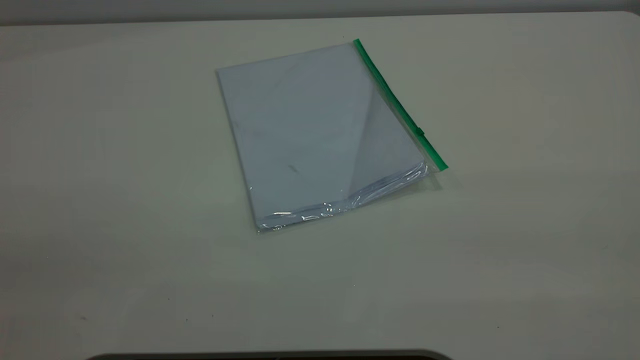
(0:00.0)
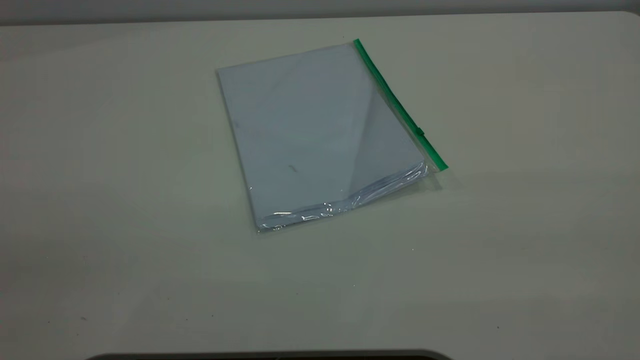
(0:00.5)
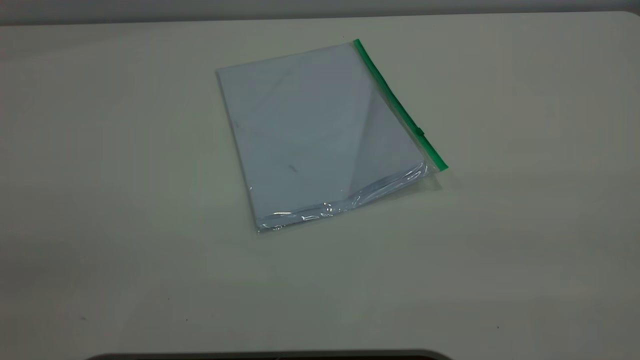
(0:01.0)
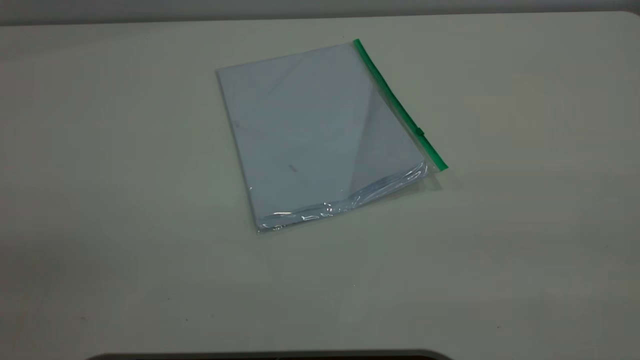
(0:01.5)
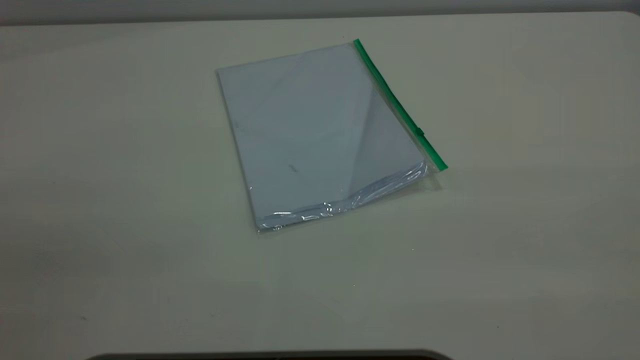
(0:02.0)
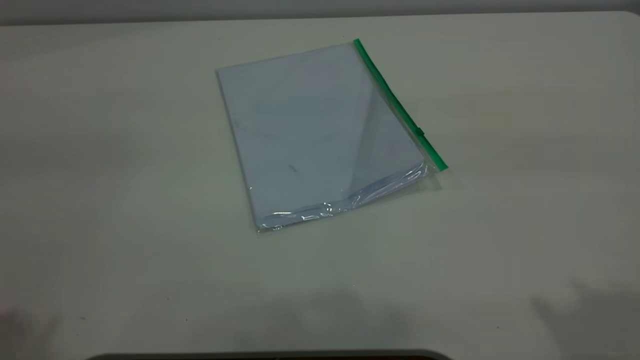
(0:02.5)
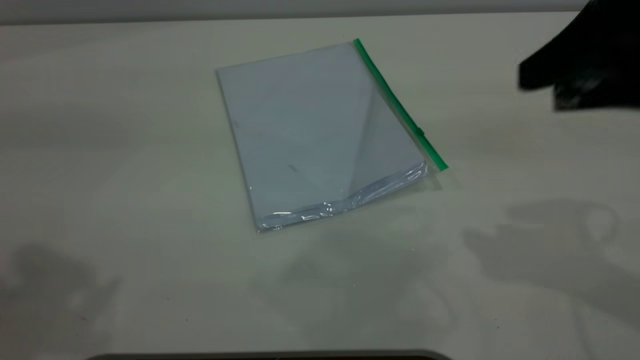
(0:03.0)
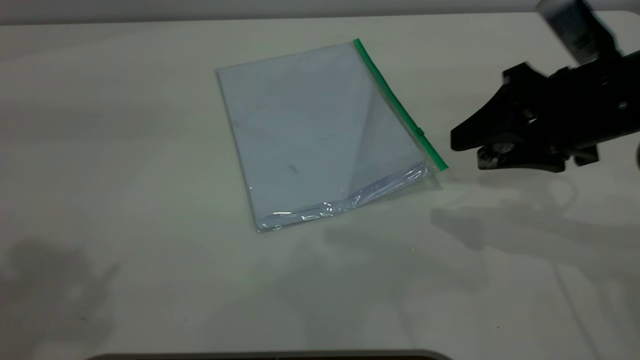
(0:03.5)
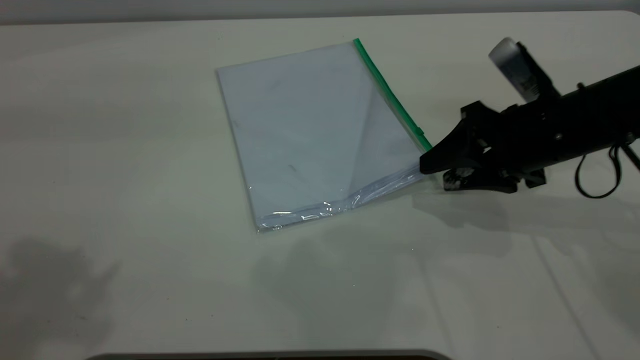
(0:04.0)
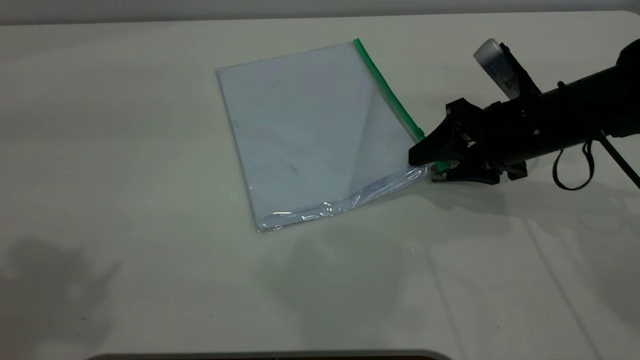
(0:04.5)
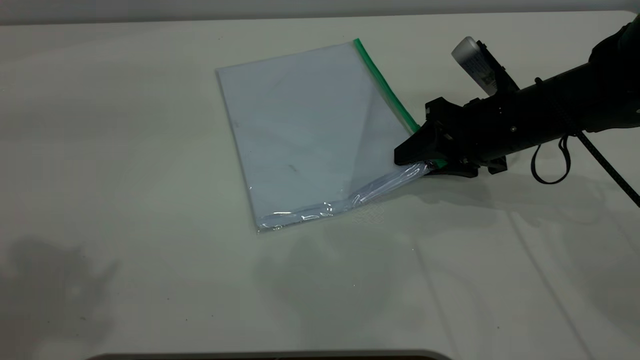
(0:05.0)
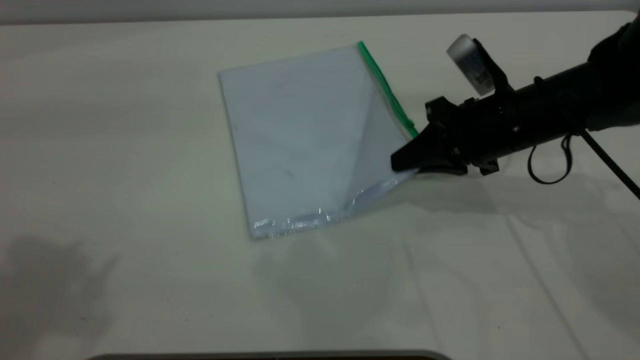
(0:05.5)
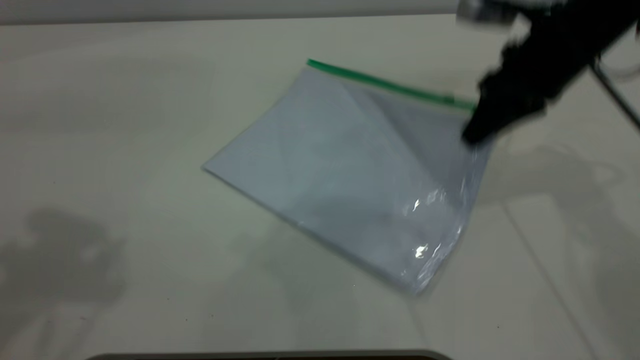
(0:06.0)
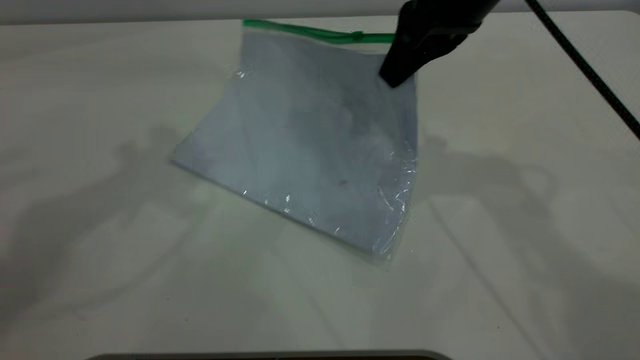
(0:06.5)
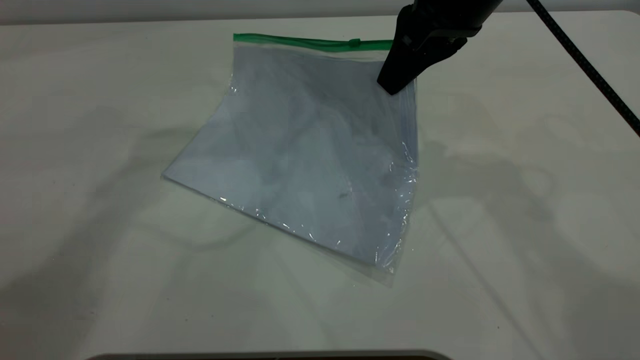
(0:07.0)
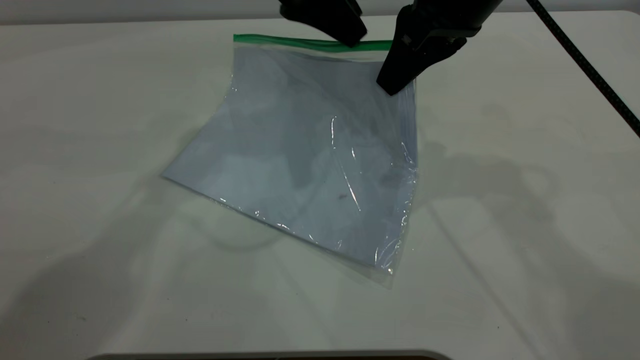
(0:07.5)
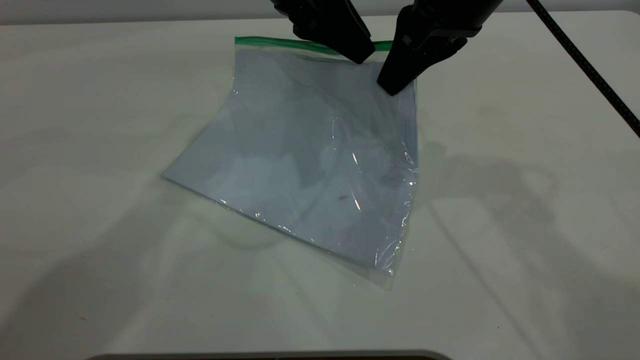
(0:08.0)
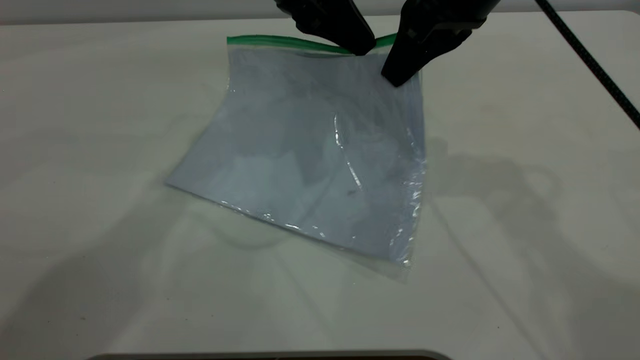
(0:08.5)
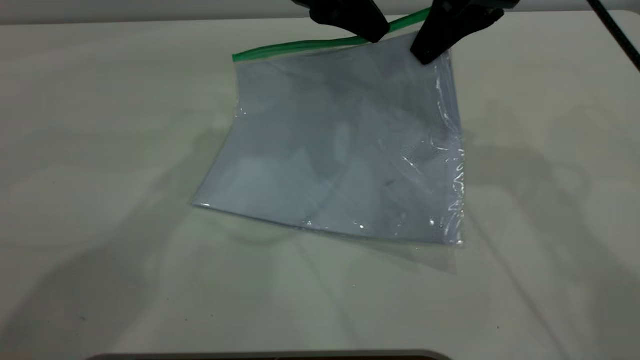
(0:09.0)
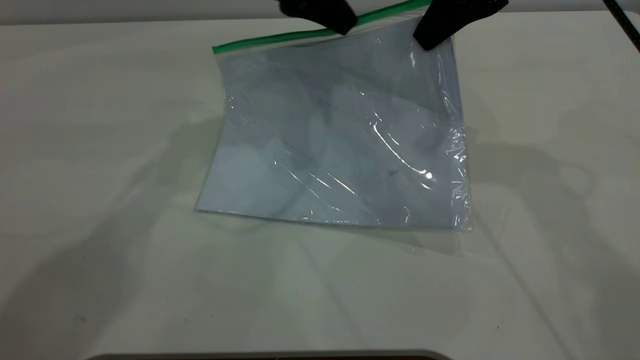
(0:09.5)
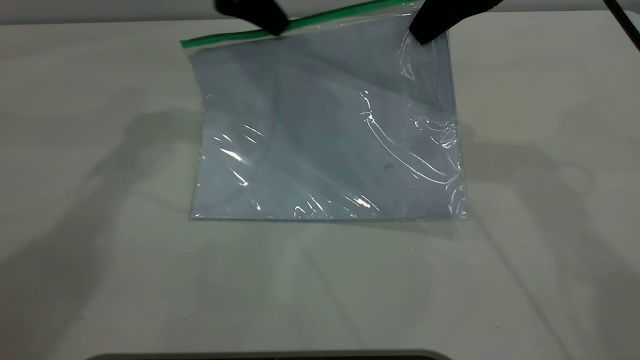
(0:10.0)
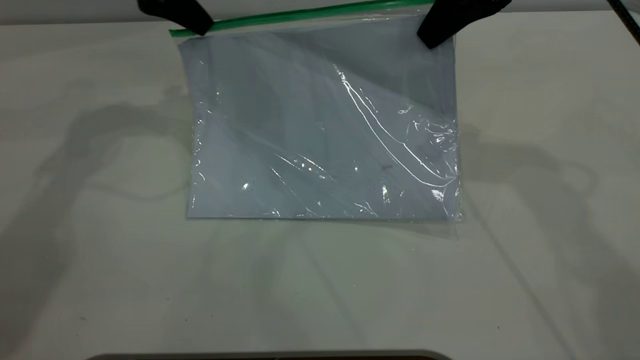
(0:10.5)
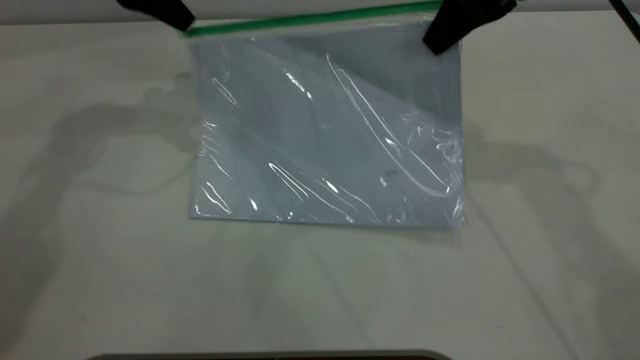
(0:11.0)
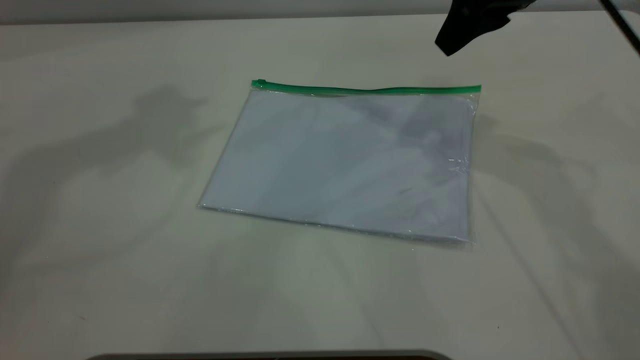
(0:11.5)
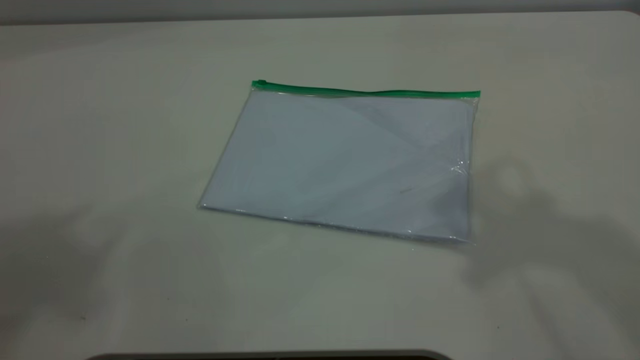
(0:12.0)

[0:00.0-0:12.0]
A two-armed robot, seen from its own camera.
Step, 0:00.0 to 0:05.5: Pick up the transparent plastic bag with the right gripper.
Step, 0:06.0 to 0:10.5: Pulling up the zipper on the transparent plastic bag with the left gripper to close it.
0:02.0 to 0:04.0: The right gripper moves forward and downward, roughly 40 cm, and opens up.
0:04.0 to 0:06.0: The right gripper shifts some 10 cm upward and forward, and closes its fingers. The left gripper changes place by about 5 cm.
0:06.0 to 0:08.0: The right gripper is displaced to the left and upward by about 10 cm, while the left gripper goes roughly 30 cm to the right, forward and downward, and closes its fingers.
0:08.0 to 0:10.0: The right gripper moves about 5 cm; the left gripper shifts approximately 10 cm to the left, and closes its fingers.
0:10.0 to 0:12.0: The right gripper shifts some 25 cm upward and backward, and opens its fingers, while the left gripper goes some 50 cm upward and backward, and opens up.
